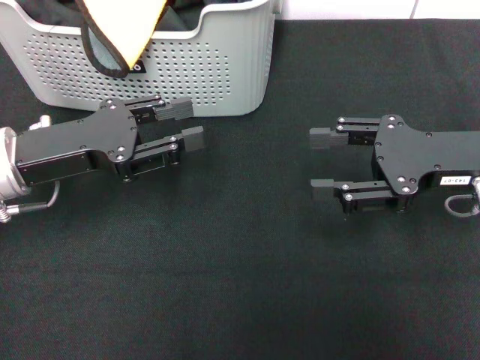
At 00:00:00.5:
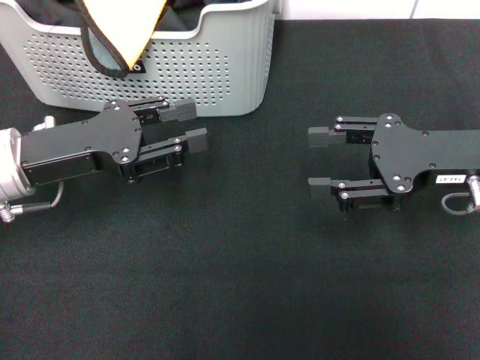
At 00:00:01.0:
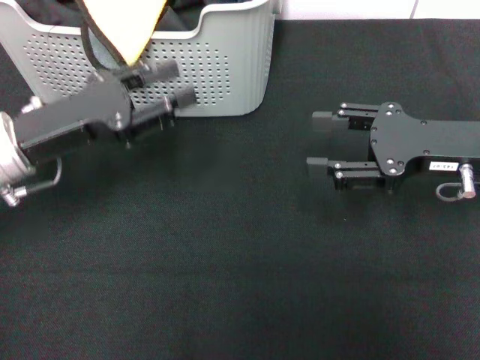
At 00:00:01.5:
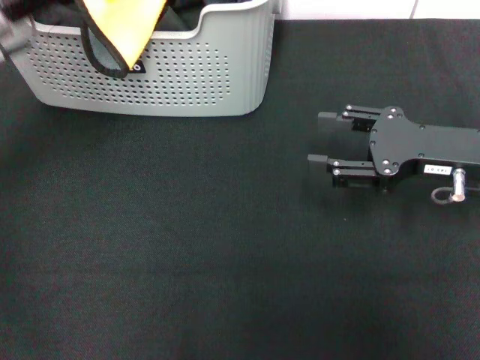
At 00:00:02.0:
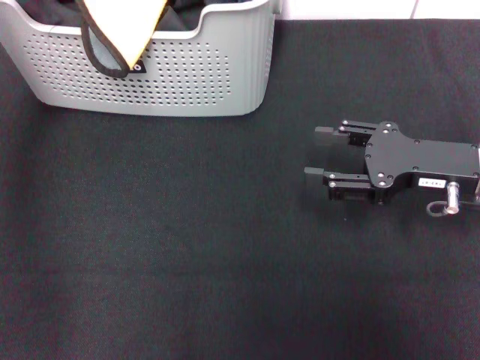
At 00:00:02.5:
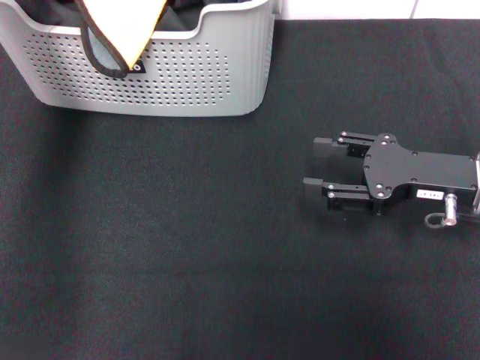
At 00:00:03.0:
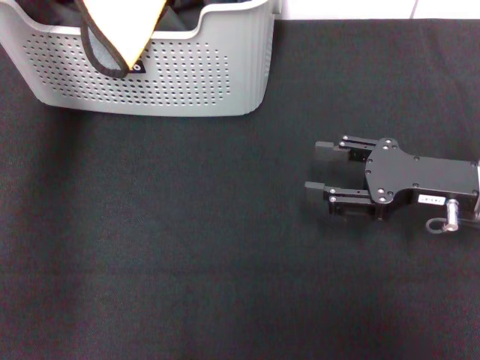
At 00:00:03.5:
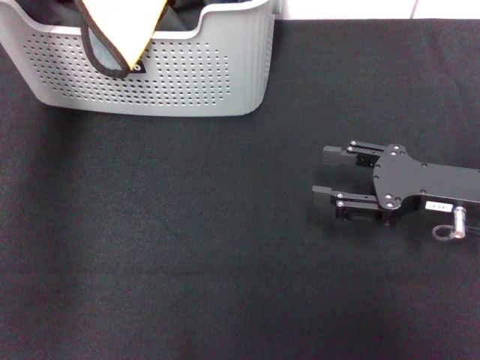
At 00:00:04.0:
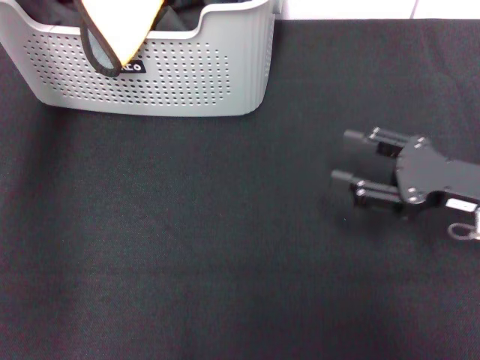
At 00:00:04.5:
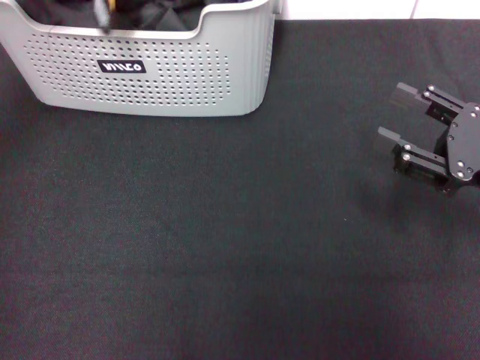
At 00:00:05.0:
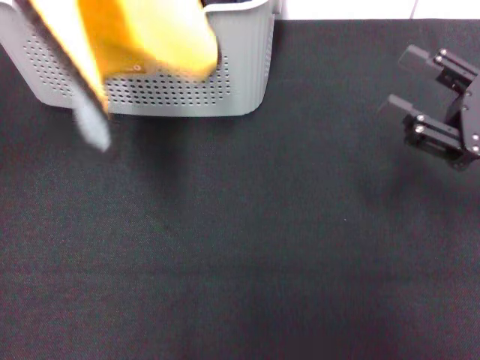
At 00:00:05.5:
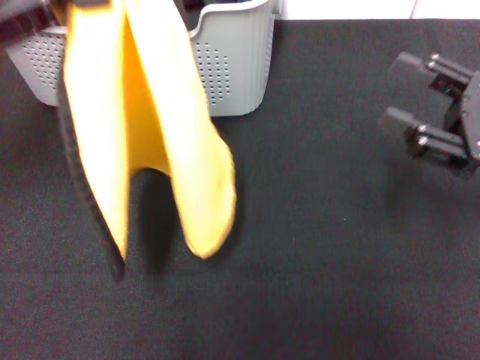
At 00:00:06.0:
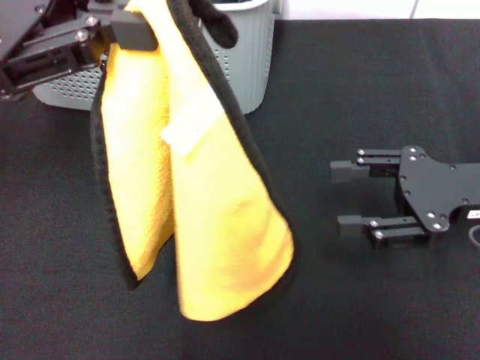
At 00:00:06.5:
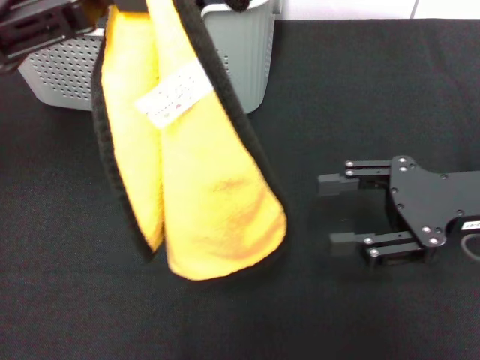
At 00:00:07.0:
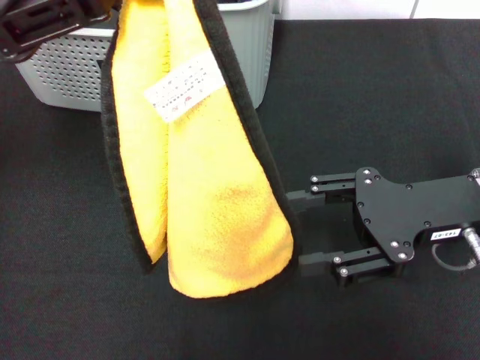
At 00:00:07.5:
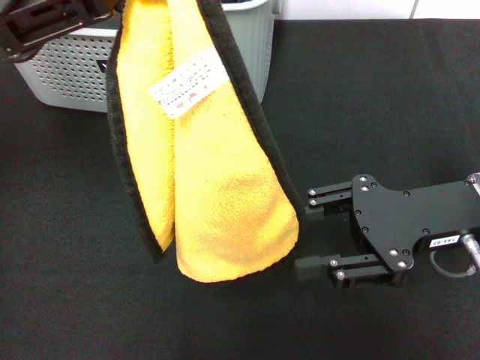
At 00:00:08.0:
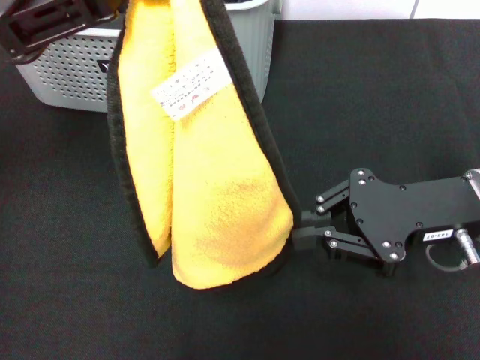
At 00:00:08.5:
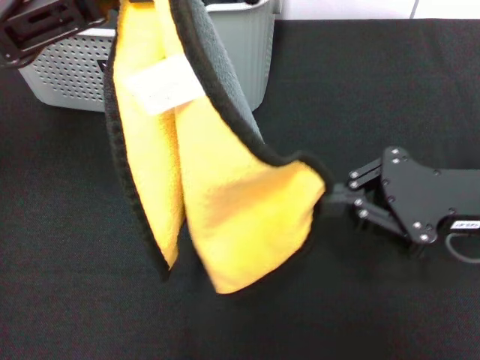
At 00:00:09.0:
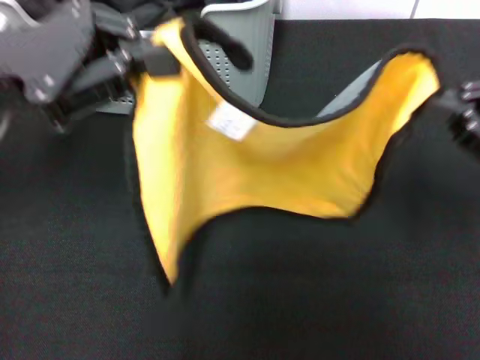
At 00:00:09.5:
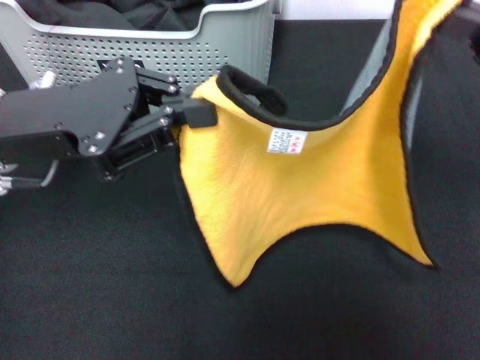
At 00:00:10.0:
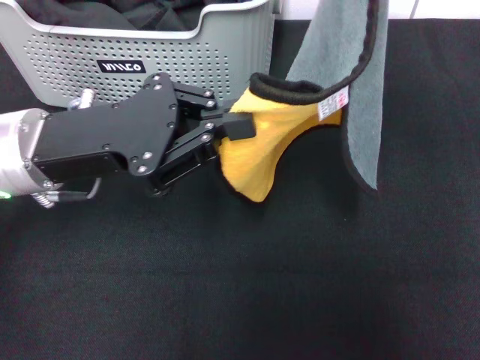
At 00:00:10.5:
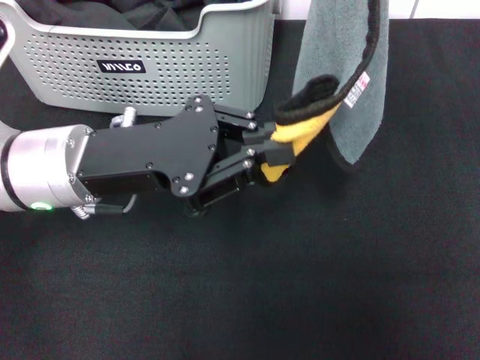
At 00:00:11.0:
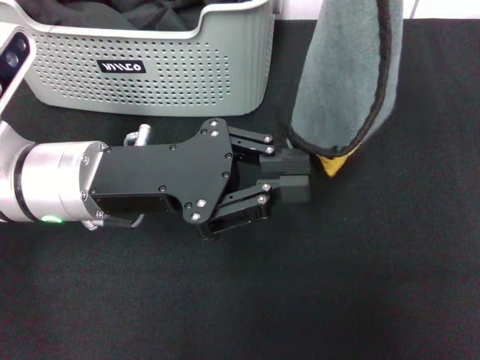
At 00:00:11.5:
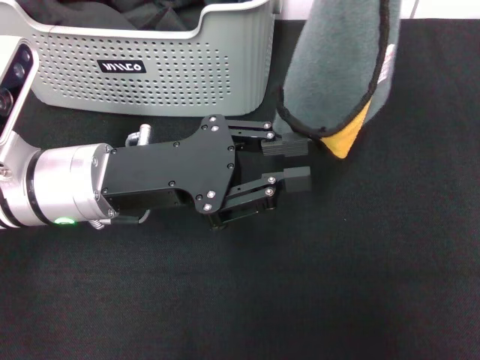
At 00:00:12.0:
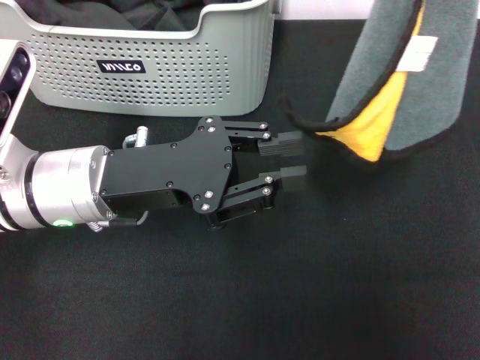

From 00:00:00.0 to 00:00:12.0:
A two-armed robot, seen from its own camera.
Task of the whole recording: pick up the towel from the storage box and lay it flat on the black tablecloth.
Step, from 00:00:00.0 to 00:00:03.5: Pick up a towel with the left gripper.
Step, from 00:00:04.0 to 00:00:08.0: Spread the towel flat with the left gripper.
From 00:00:00.0 to 00:00:02.0: The left gripper heads upward and forward, covering some 20 cm.
From 00:00:02.0 to 00:00:04.0: The left gripper closes up.
From 00:00:04.0 to 00:00:06.0: The left gripper moves backward, some 15 cm.
From 00:00:06.0 to 00:00:08.0: The right gripper closes its fingers.
From 00:00:08.0 to 00:00:10.0: The right gripper moves upward, approximately 15 cm. The left gripper shifts about 15 cm downward.
From 00:00:10.0 to 00:00:12.0: The left gripper opens.

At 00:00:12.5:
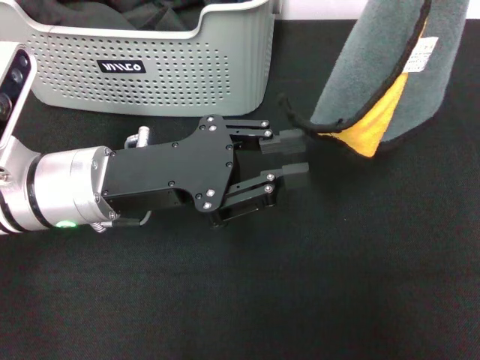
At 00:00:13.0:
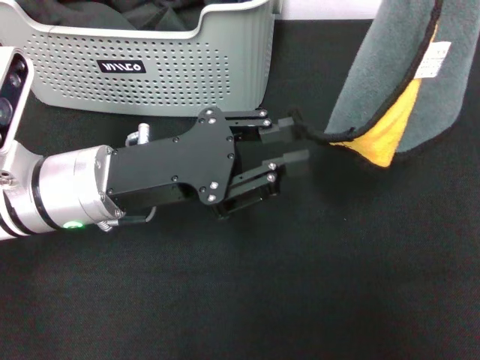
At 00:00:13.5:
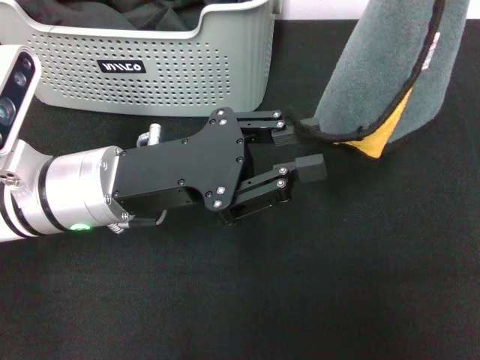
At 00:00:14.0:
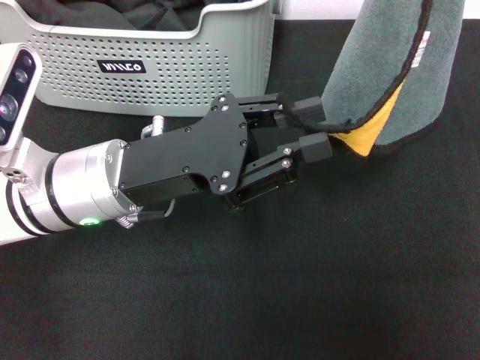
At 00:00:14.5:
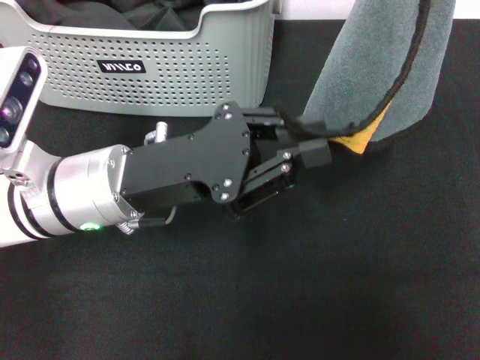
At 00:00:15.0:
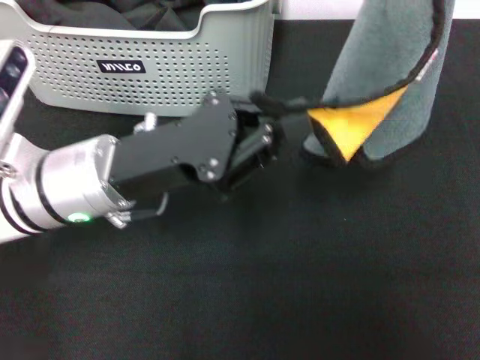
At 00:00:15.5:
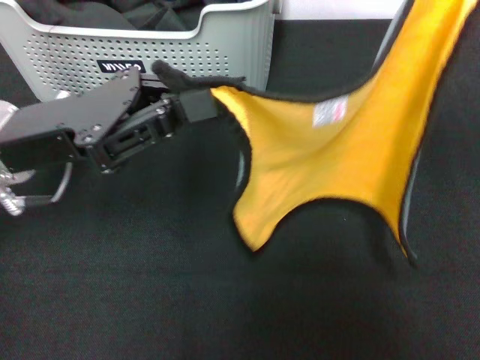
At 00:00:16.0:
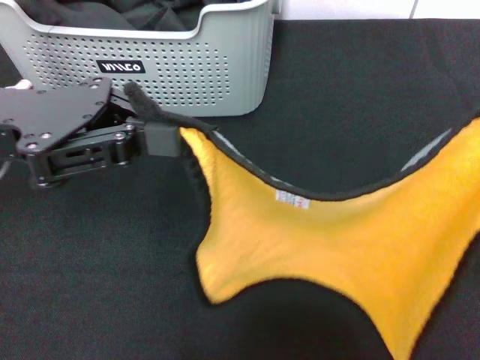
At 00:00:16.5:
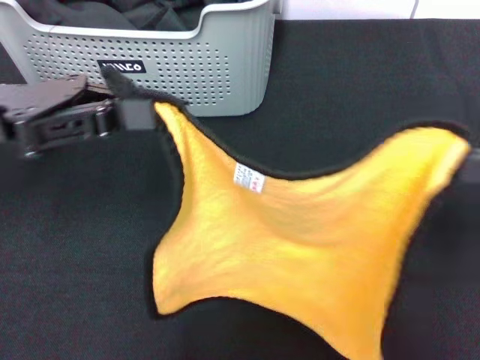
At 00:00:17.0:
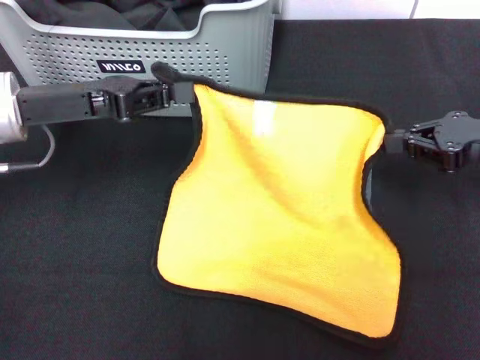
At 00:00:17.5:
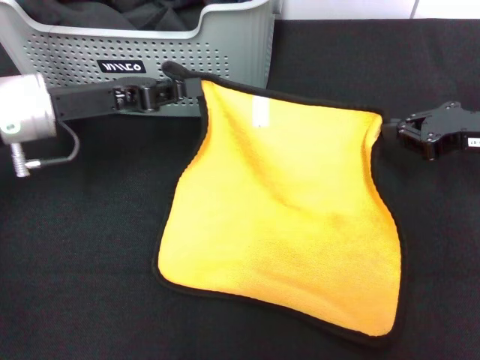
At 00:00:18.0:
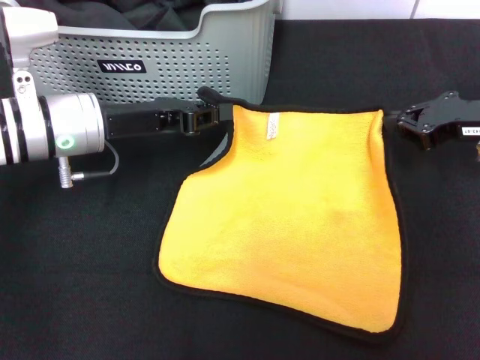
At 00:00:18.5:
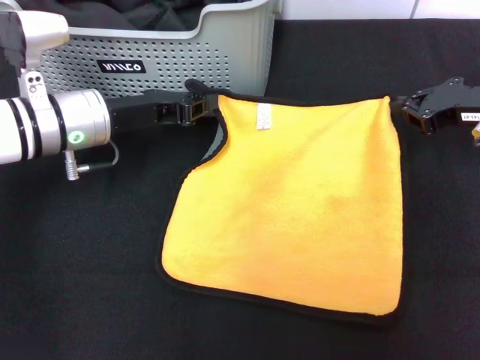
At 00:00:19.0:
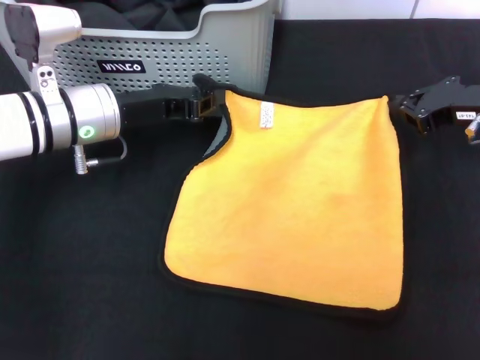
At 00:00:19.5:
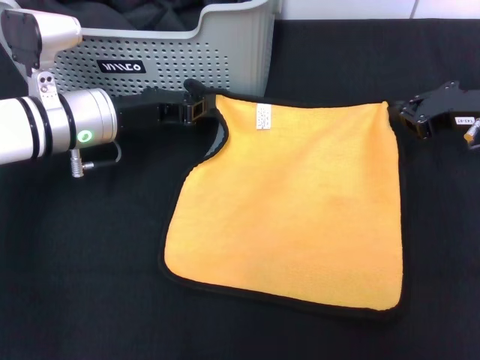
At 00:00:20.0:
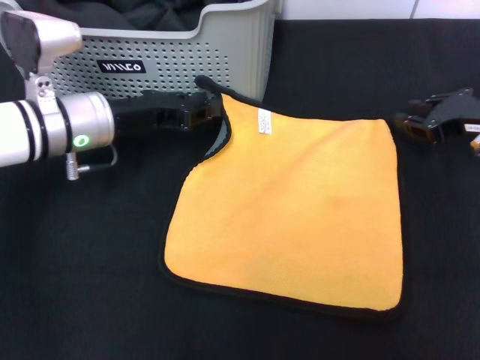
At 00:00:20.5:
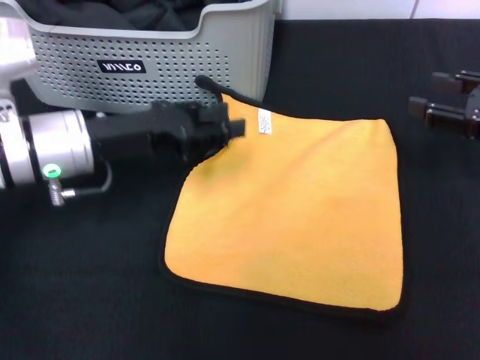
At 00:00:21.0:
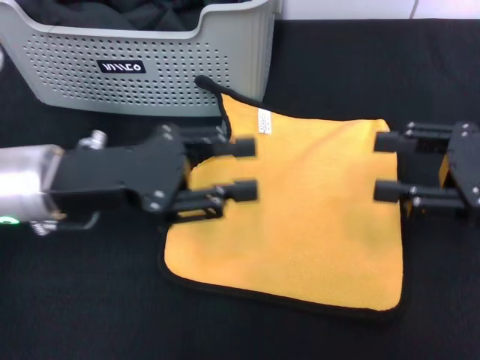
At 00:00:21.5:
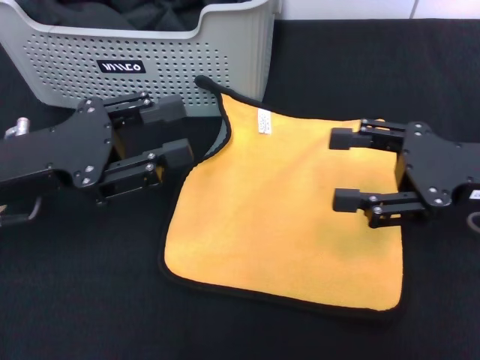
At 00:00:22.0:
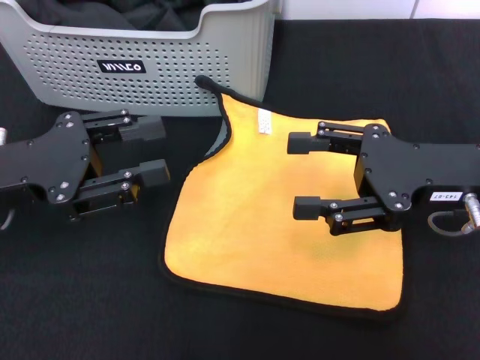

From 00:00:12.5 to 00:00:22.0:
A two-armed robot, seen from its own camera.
Task of the whole recording: pick up the towel from the storage box and lay it flat on the black tablecloth.
Step, from 00:00:12.5 to 00:00:19.5: Spread the towel flat with the right gripper.
From 00:00:12.5 to 00:00:14.5: The grippers move only a little.
From 00:00:14.5 to 00:00:16.5: The right gripper is displaced downward and backward by about 15 cm. Meanwhile the left gripper shifts roughly 15 cm to the left and upward, and closes.
From 00:00:16.5 to 00:00:18.0: The left gripper heads downward, to the right and forward, covering about 10 cm; the right gripper travels forward by approximately 10 cm.
From 00:00:20.0 to 00:00:22.0: Both grippers move backward and to the left, about 10 cm. The left gripper opens, while the right gripper opens its fingers.
